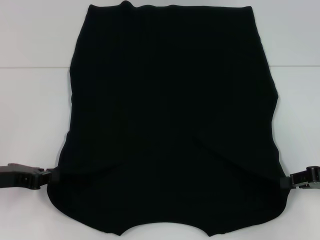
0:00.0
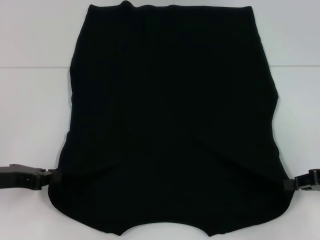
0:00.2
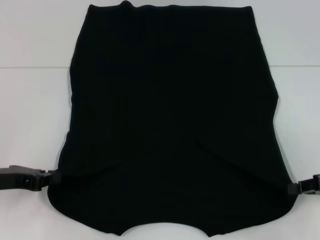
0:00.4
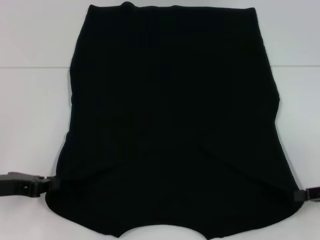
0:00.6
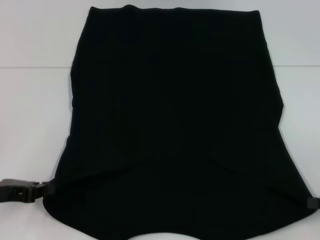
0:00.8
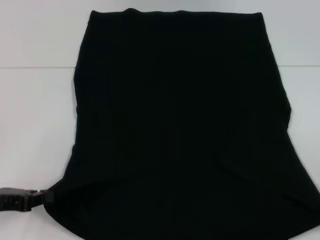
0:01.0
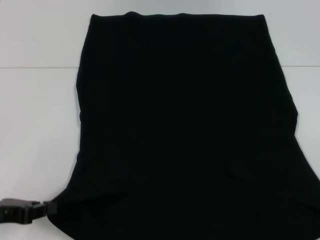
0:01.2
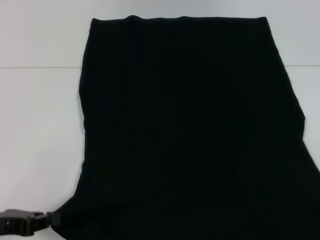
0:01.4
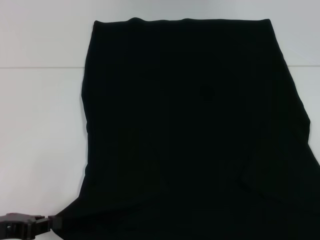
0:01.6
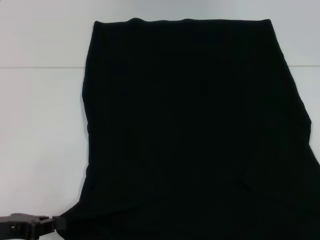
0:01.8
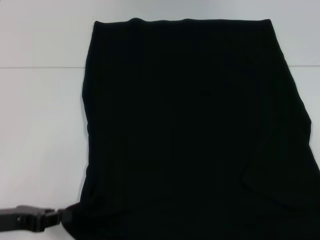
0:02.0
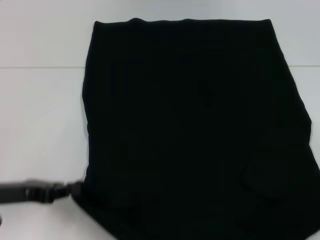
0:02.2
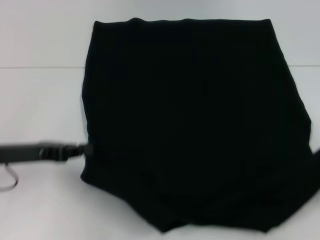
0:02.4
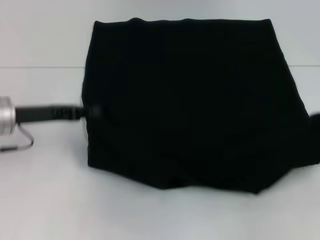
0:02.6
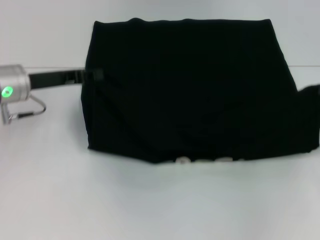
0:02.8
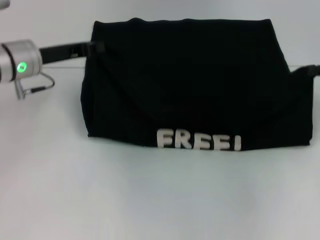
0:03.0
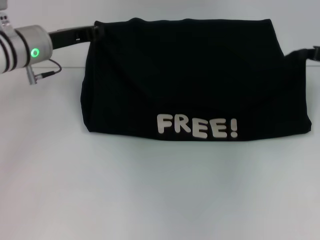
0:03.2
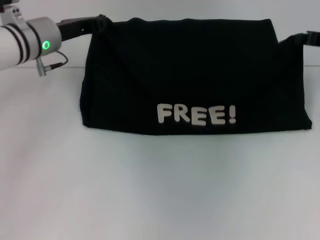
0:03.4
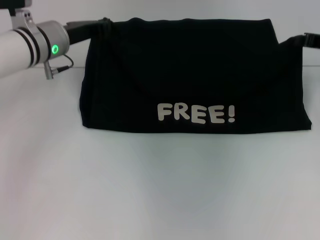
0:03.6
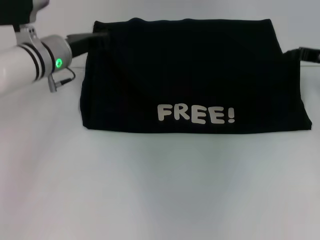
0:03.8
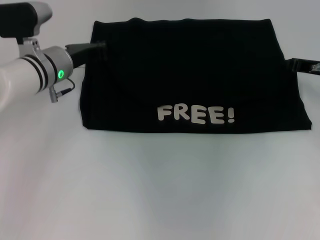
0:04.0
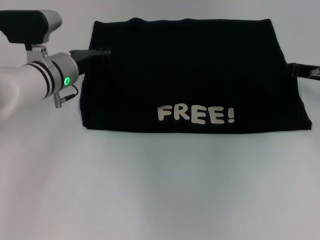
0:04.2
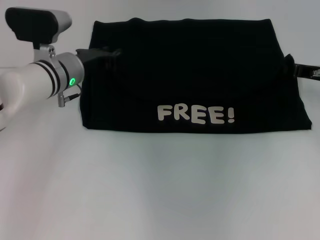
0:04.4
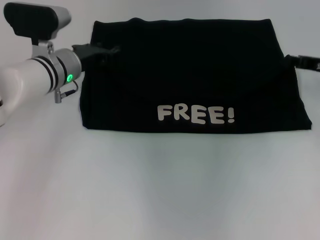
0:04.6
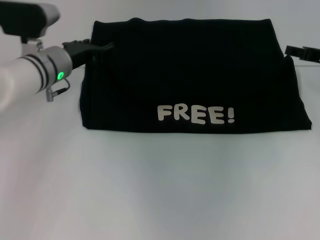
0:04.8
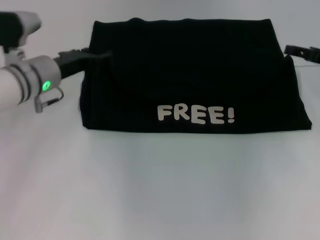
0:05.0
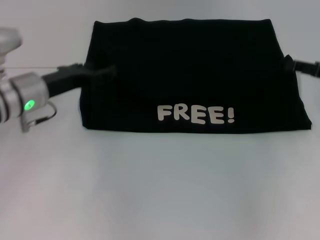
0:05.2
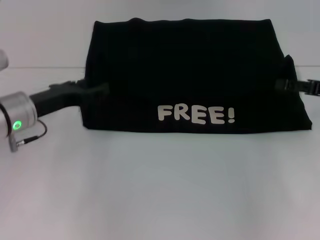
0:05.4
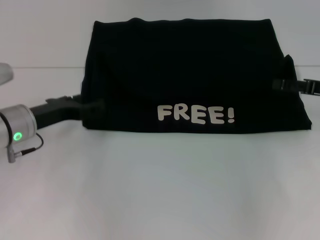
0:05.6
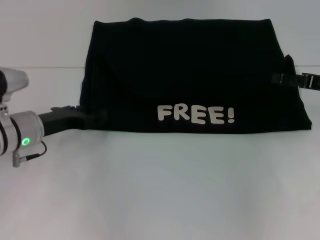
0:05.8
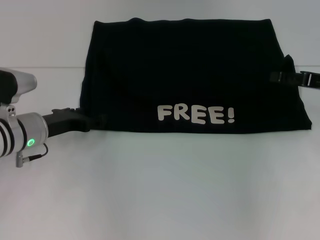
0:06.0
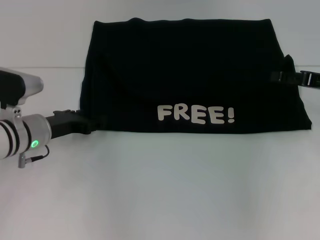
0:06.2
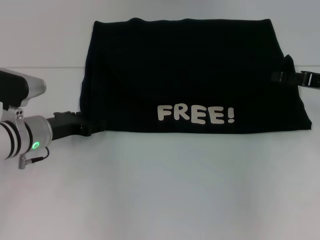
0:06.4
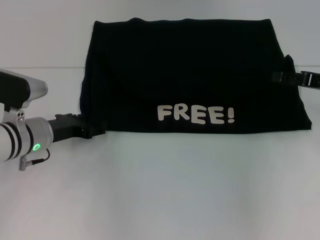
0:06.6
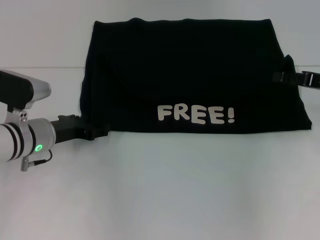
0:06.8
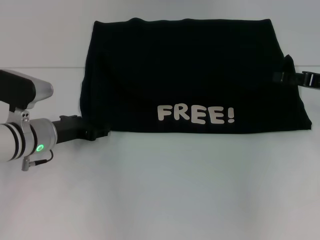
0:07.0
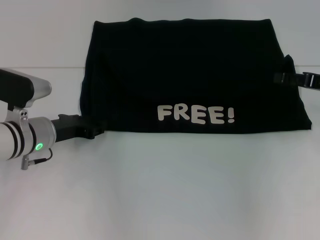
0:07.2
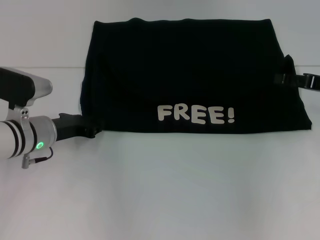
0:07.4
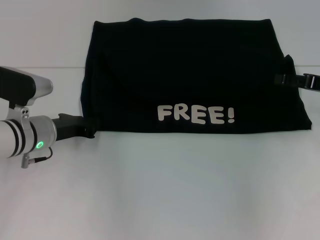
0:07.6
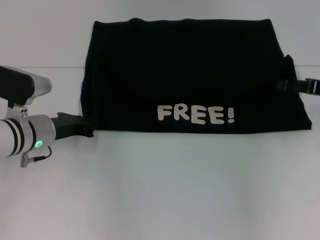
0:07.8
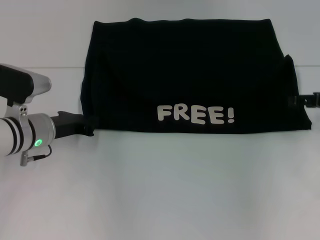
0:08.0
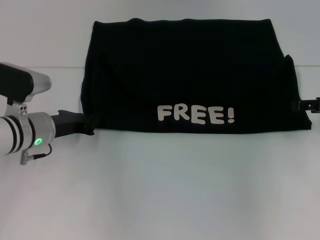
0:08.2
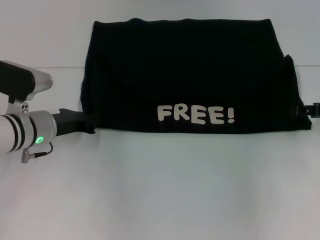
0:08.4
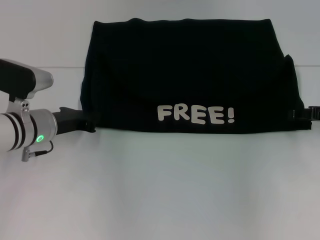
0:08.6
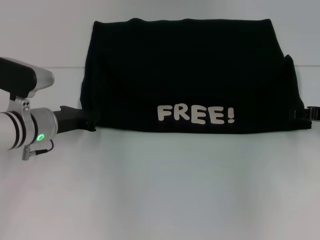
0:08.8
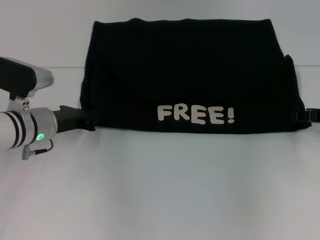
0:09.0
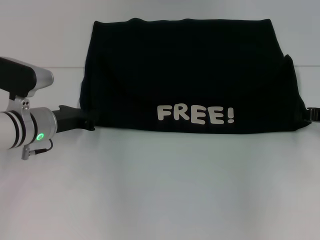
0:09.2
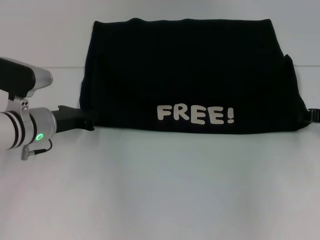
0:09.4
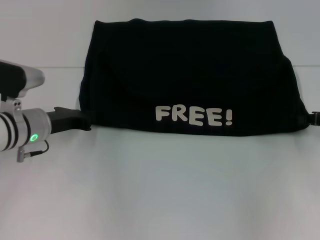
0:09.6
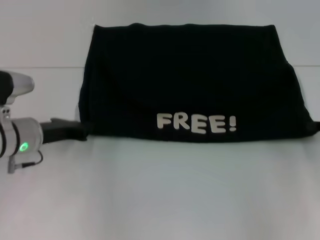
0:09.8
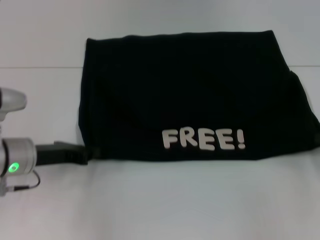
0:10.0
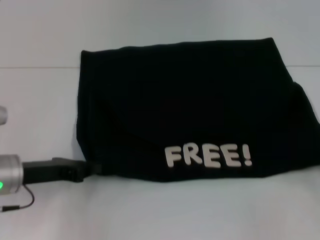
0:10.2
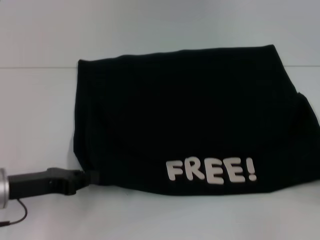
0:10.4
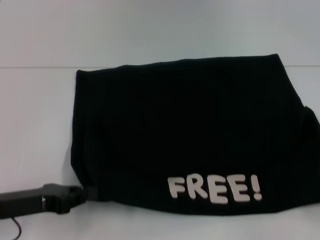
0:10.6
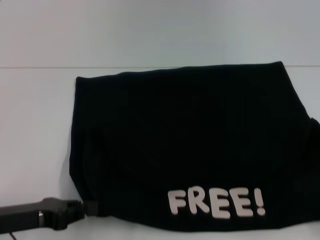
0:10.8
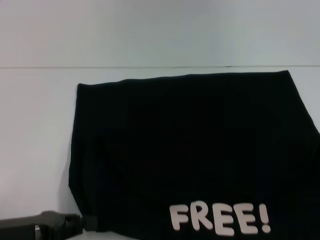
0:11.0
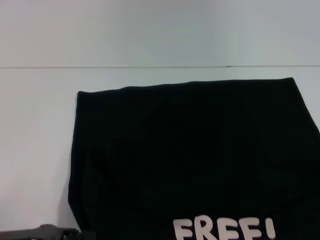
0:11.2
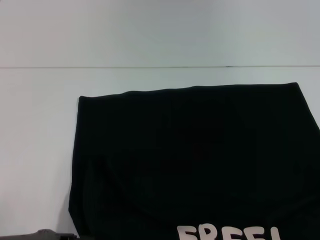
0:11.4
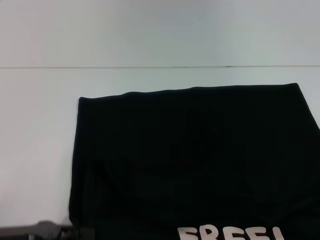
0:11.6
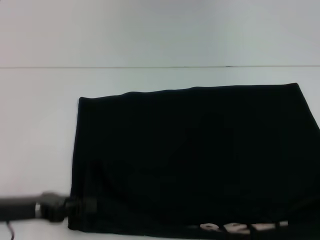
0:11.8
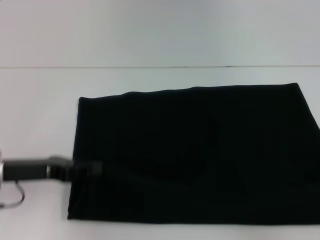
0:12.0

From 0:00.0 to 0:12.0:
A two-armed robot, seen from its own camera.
Step, from 0:00.4 to 0:04.6: Fold the clothes with your left hand.
Step, from 0:00.4 to 0:04.6: Fold the clothes with your right hand.
Step, from 0:04.8 to 0:11.2: Pull the clothes with your left hand.
Step, from 0:04.8 to 0:11.2: Pull the clothes with your right hand.
From 0:00.0 to 0:01.6: The right gripper goes about 15 cm backward and to the right, while the left gripper shifts approximately 5 cm backward.
From 0:01.6 to 0:03.0: Both grippers move forward, roughly 20 cm.
From 0:03.0 to 0:04.4: The left gripper moves to the right, some 5 cm; the right gripper shifts roughly 5 cm to the left.
From 0:04.4 to 0:06.0: The left gripper goes some 10 cm backward and to the left, and opens. Meanwhile the right gripper moves roughly 5 cm, and opens up.
From 0:06.0 to 0:07.6: The left gripper closes.
From 0:07.6 to 0:09.0: The grippers move only a little.
From 0:09.0 to 0:10.4: The right gripper travels backward and to the right by some 15 cm, and closes its fingers; the left gripper travels backward by roughly 10 cm.
From 0:10.4 to 0:12.0: The right gripper moves some 15 cm backward and comes back; the left gripper moves some 10 cm backward and comes back.

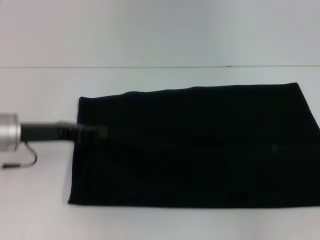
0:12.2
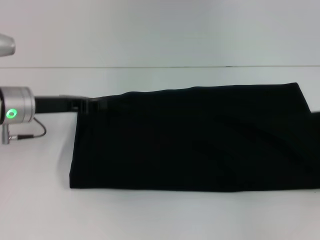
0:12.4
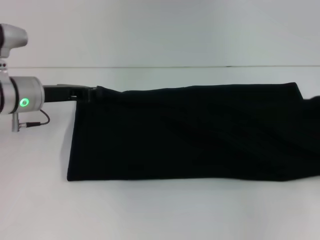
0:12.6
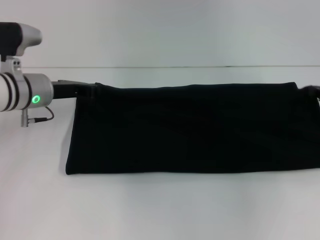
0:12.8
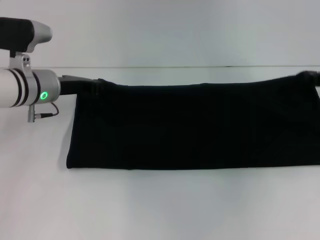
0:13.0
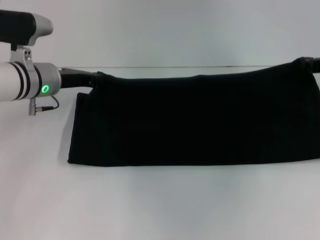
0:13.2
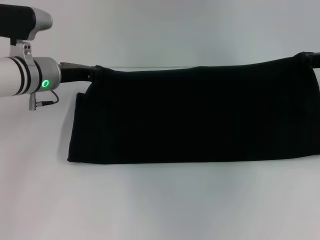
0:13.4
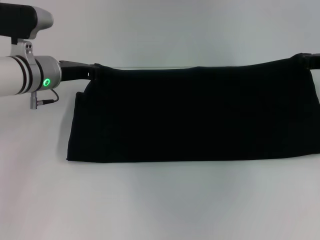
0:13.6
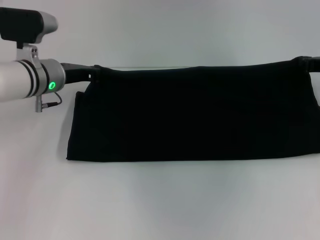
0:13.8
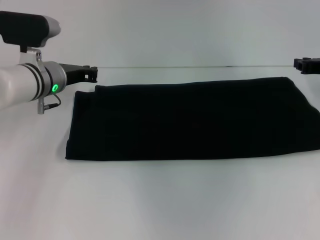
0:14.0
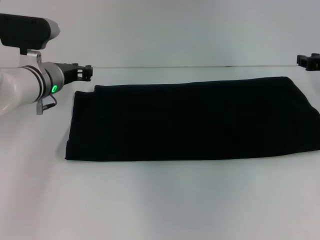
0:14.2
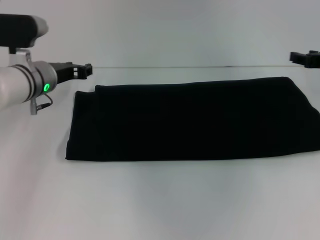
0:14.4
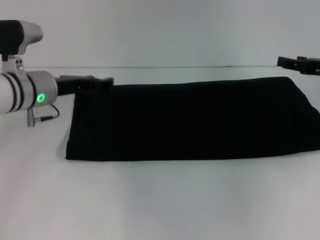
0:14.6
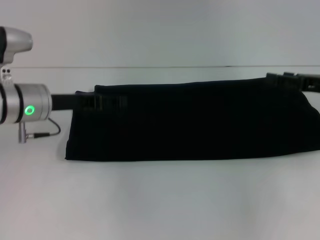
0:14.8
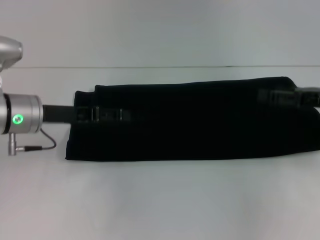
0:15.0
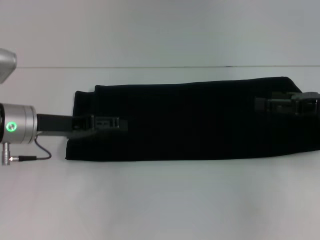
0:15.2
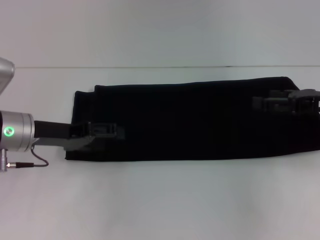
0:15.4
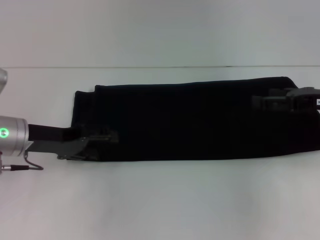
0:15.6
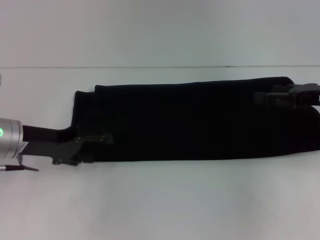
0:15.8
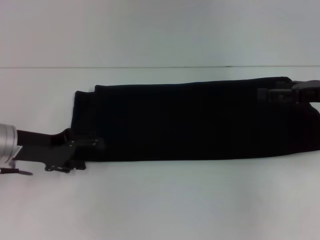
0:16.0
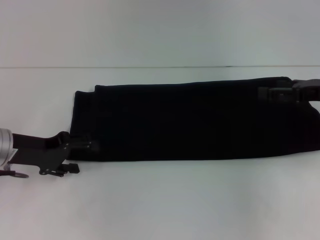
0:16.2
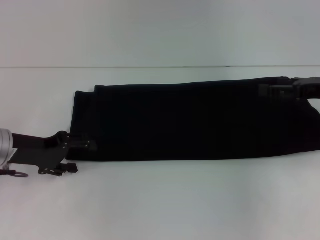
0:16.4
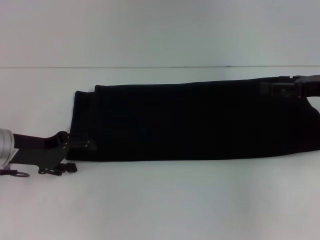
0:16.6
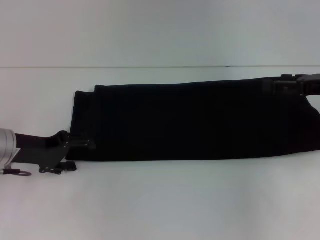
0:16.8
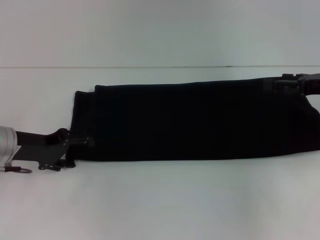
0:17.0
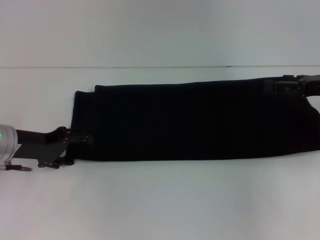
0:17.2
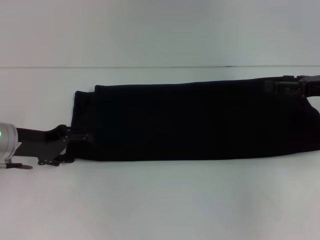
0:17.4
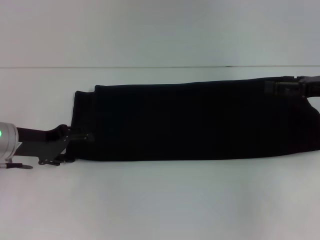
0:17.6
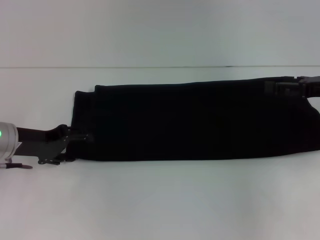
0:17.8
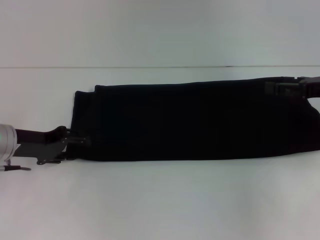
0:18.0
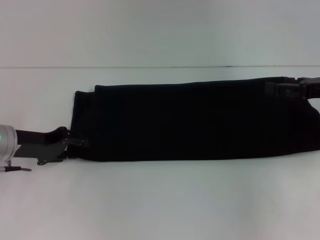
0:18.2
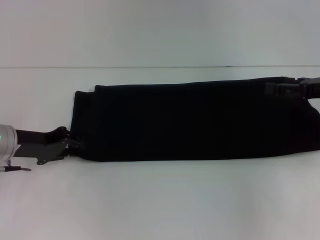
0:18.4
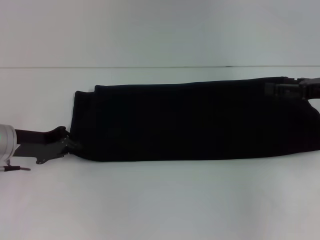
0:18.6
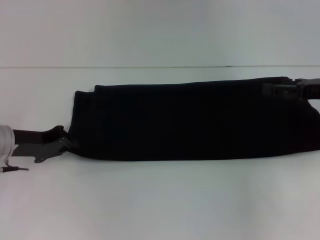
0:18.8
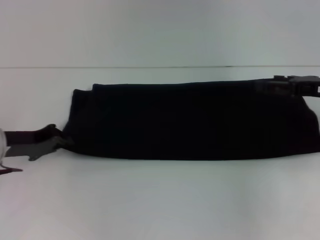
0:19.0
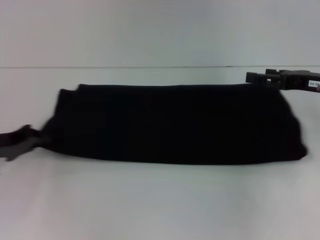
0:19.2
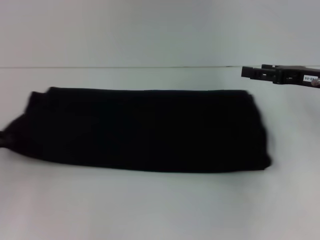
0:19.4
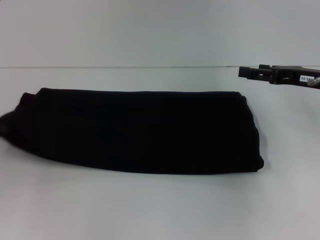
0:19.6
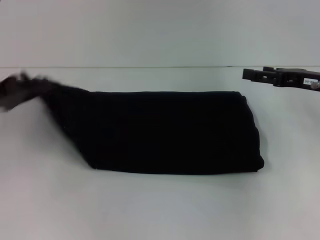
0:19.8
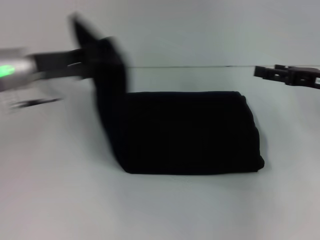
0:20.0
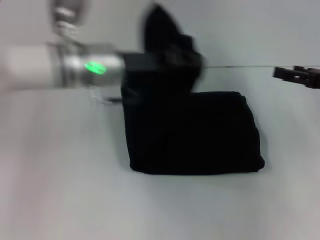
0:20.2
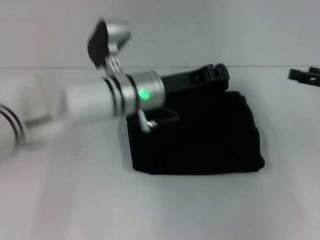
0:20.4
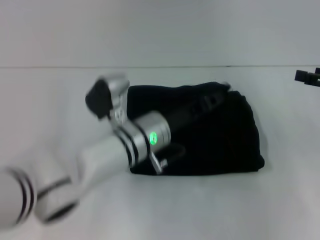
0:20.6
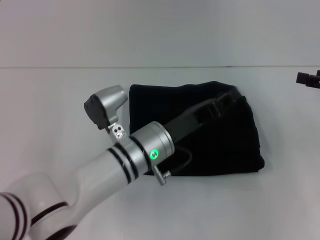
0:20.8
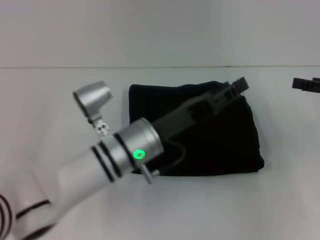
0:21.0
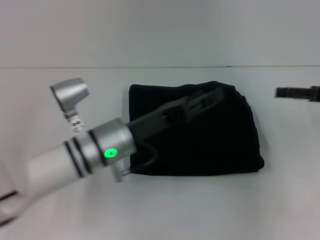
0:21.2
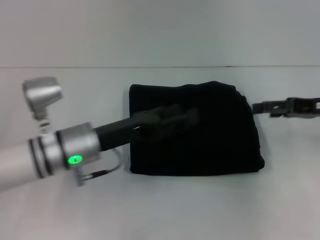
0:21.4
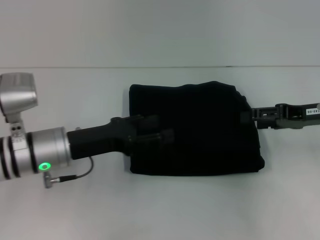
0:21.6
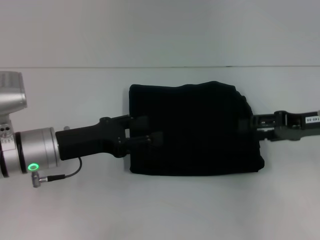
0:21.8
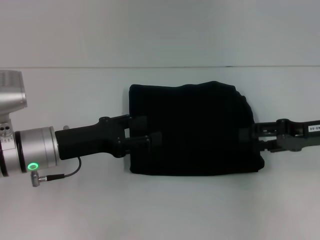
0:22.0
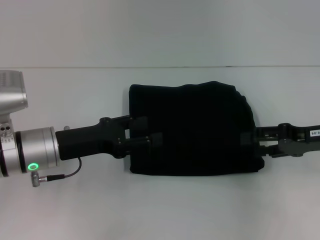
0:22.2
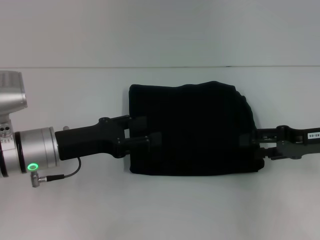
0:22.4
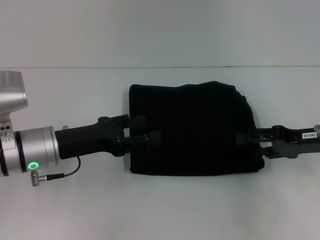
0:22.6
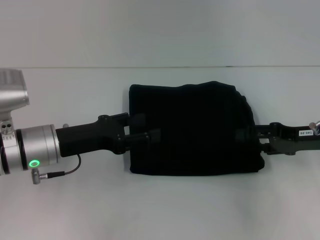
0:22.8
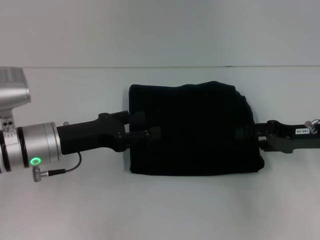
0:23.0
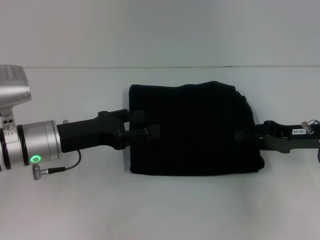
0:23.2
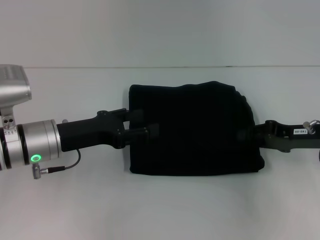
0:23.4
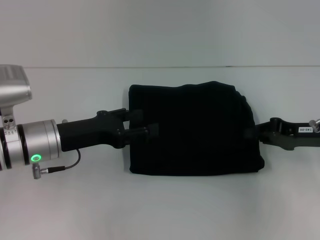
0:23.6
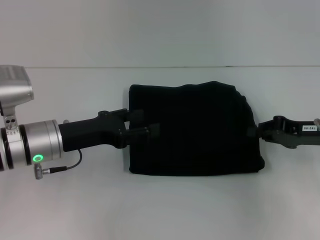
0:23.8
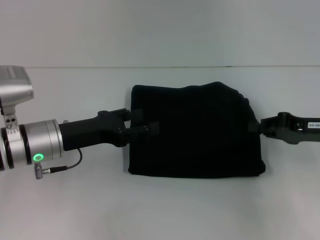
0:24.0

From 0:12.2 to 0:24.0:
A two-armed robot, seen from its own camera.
Step, from 0:12.2 to 0:15.8: Fold the clothes with your right hand.
Step, from 0:12.2 to 0:20.8: Fold the clothes with your left hand.
From 0:12.2 to 0:13.6: The right gripper moves forward and to the left, about 20 cm. The left gripper is displaced forward by some 10 cm.
From 0:13.6 to 0:15.2: Both grippers travel together backward, approximately 10 cm. The left gripper opens its fingers, while the right gripper opens its fingers.
From 0:16.6 to 0:18.2: The grippers stay close to where they were, moving slightly.
From 0:18.2 to 0:19.6: The left gripper moves to the left, about 10 cm, and closes its fingers.
From 0:19.6 to 0:21.0: The right gripper goes about 10 cm to the right. Meanwhile the left gripper shifts some 30 cm to the right, and opens.
From 0:21.0 to 0:22.6: The left gripper heads to the left, covering roughly 15 cm, and opens its fingers, while the right gripper shifts some 5 cm to the left.
From 0:22.6 to 0:24.0: The right gripper closes up.
